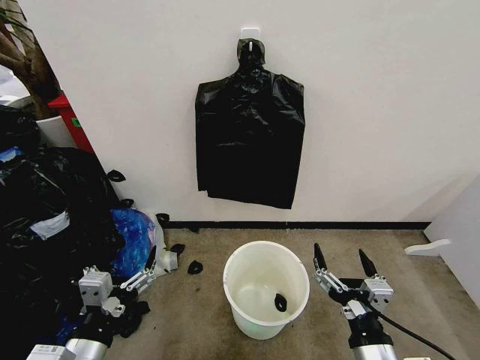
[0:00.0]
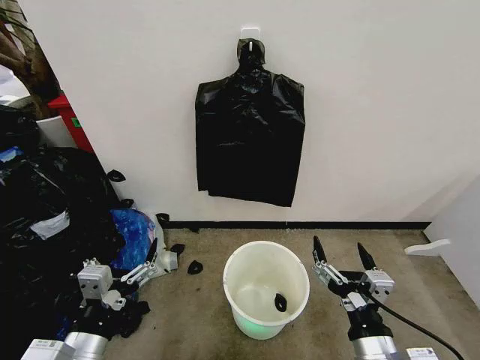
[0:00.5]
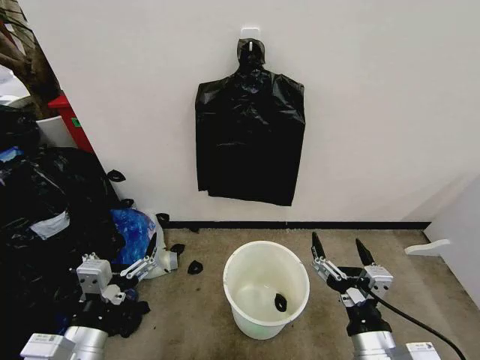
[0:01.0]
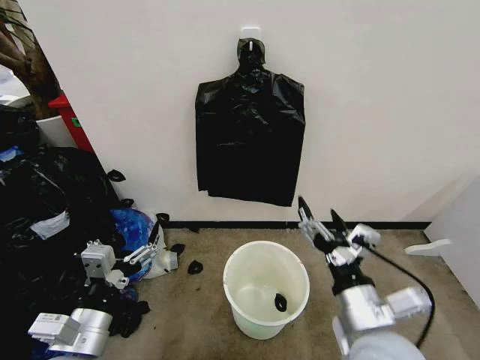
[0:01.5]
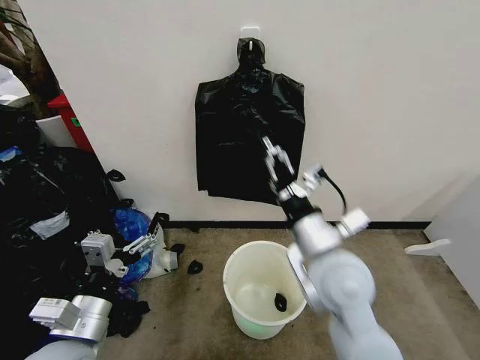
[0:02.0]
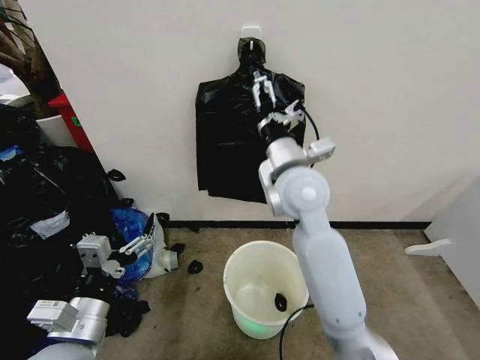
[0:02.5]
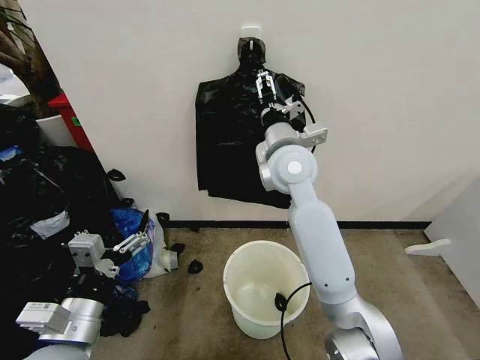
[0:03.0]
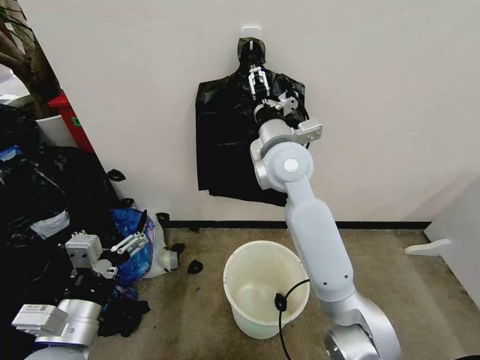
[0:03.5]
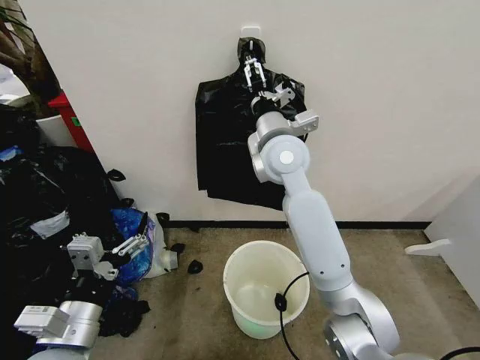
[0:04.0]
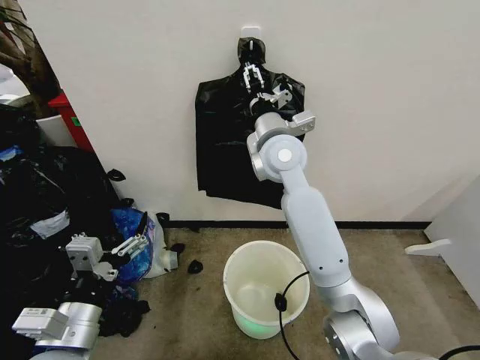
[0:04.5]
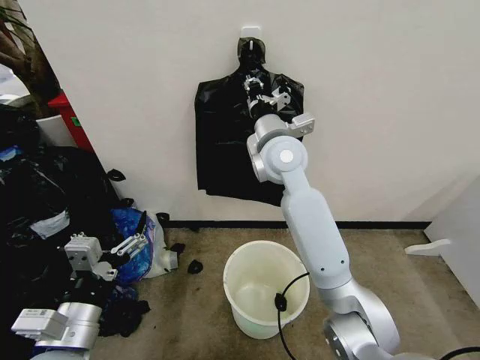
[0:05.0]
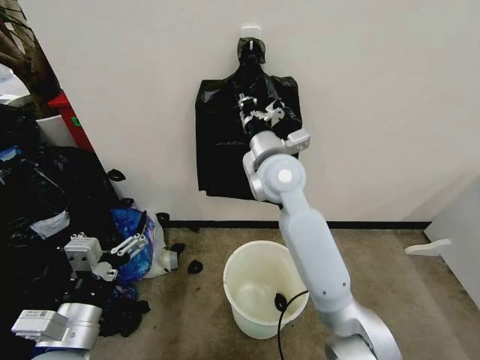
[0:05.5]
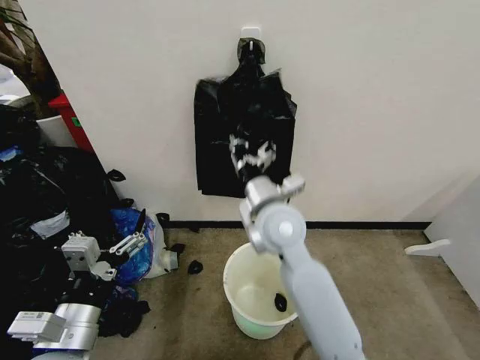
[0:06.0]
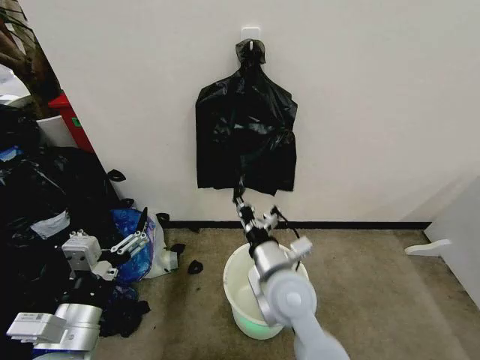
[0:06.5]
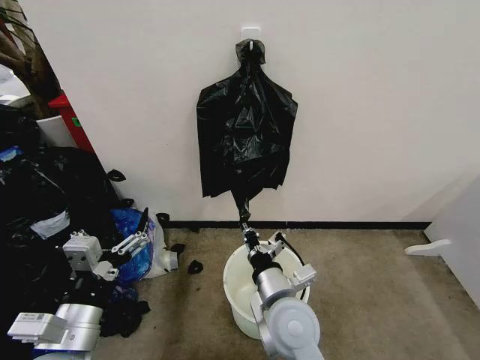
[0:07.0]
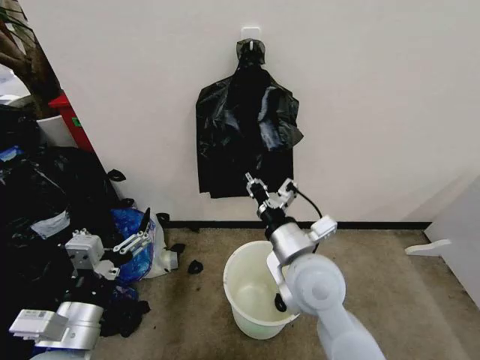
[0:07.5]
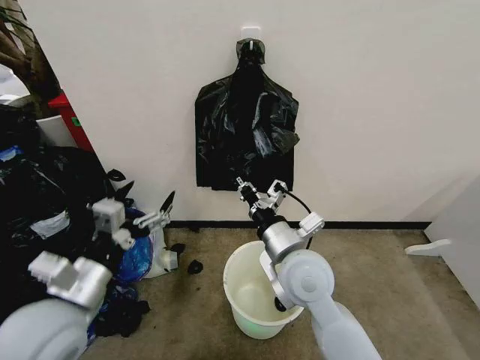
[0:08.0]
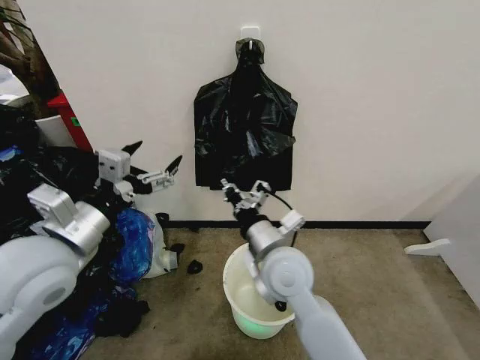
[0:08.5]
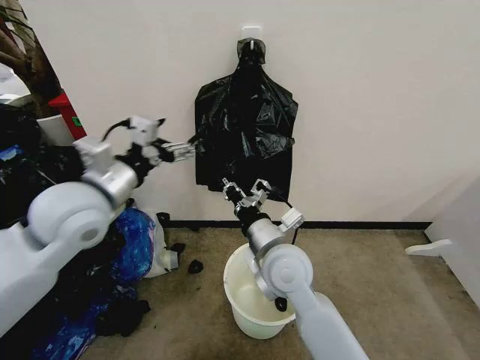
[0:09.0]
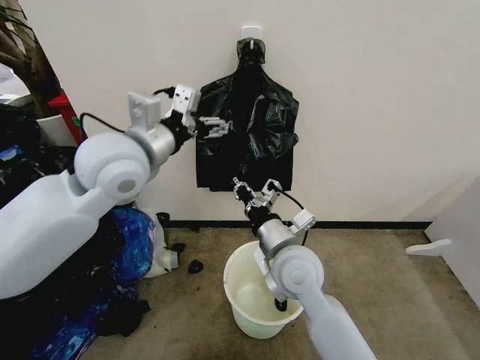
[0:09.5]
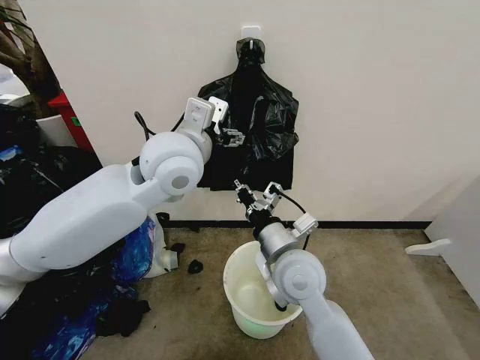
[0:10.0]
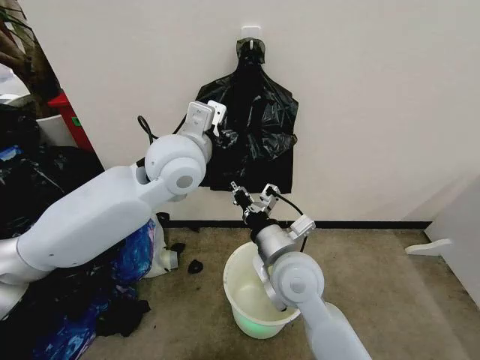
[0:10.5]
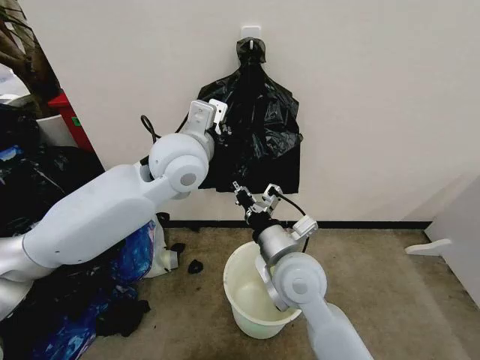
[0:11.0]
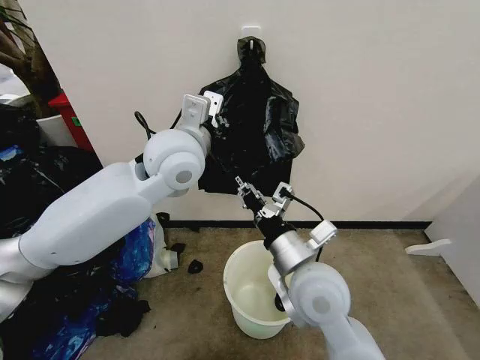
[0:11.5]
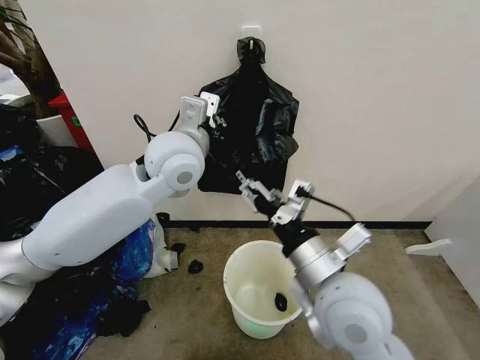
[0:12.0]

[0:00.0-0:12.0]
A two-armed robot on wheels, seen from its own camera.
Task of the whole recording: Place the garbage bag over the trash bin.
0:02.0 to 0:04.0: The right gripper moves forward and upward, approximately 20 cm.
0:04.0 to 0:06.0: The right gripper travels backward and downward by roughly 15 cm, and closes up.
0:06.0 to 0:08.0: The right gripper goes approximately 5 cm backward; the left gripper travels forward by roughly 5 cm.
0:08.0 to 0:10.0: The left gripper moves forward, to the right and upward, about 30 cm.
0:10.0 to 0:12.0: The left gripper closes, while the right gripper goes approximately 10 cm backward and upward, and opens up.

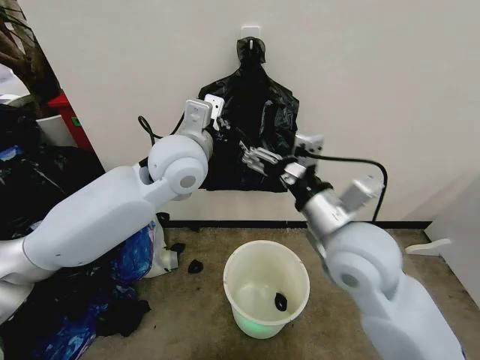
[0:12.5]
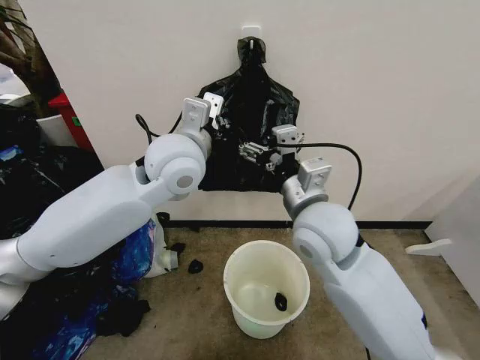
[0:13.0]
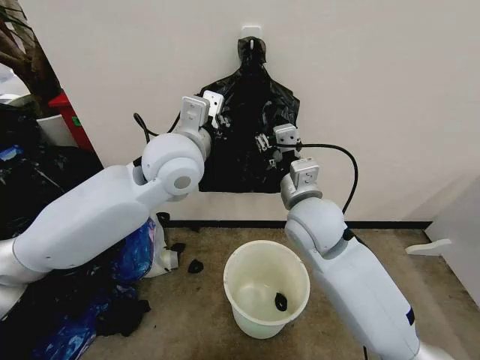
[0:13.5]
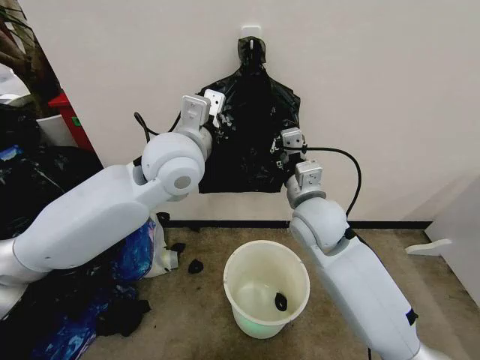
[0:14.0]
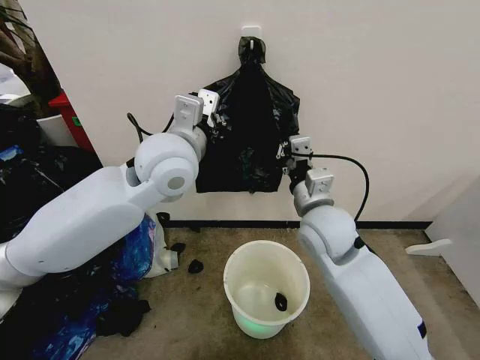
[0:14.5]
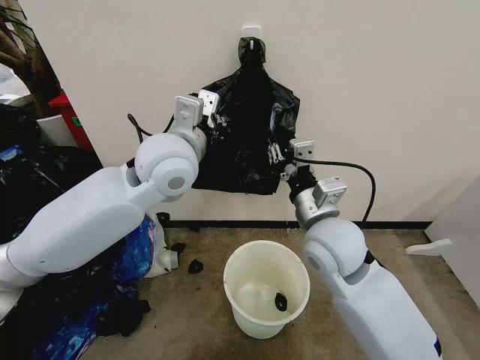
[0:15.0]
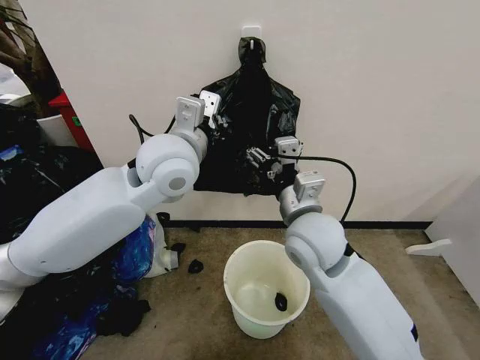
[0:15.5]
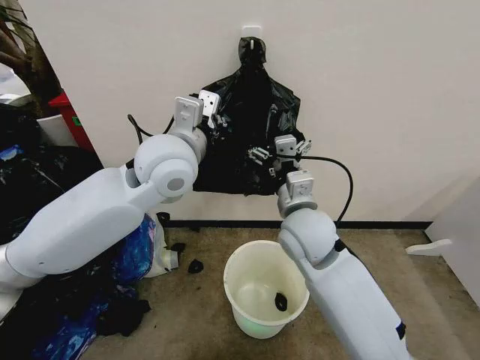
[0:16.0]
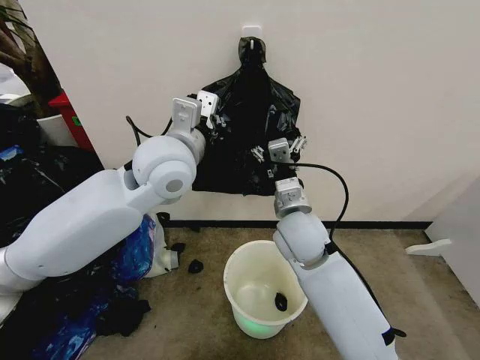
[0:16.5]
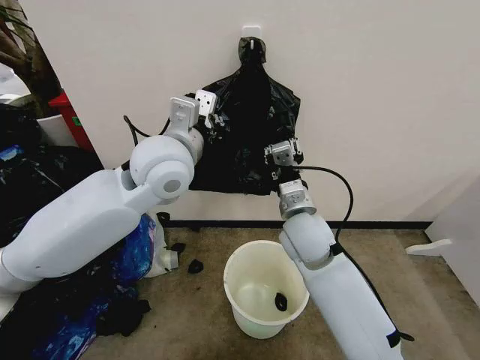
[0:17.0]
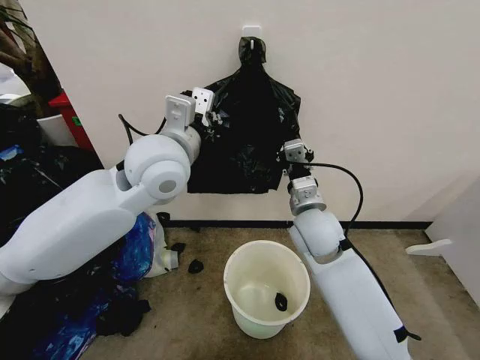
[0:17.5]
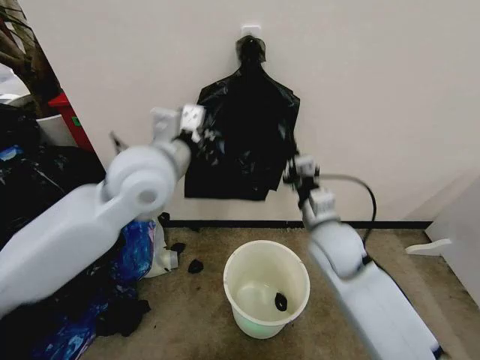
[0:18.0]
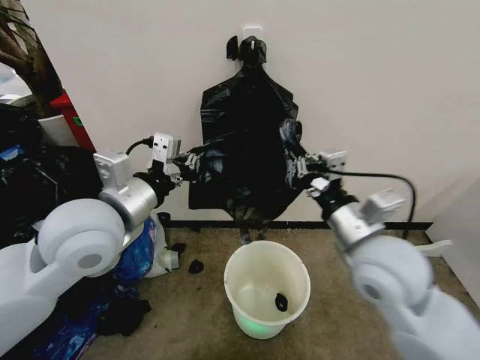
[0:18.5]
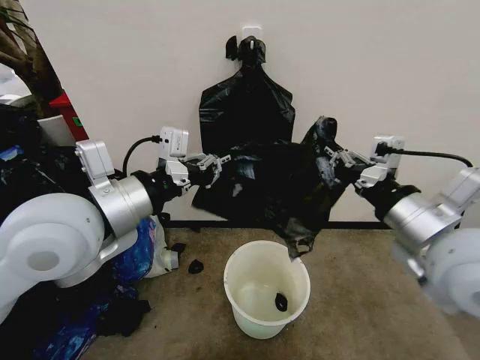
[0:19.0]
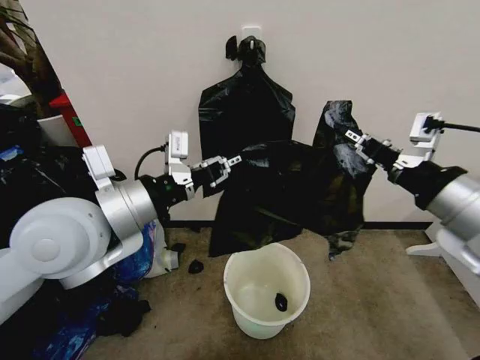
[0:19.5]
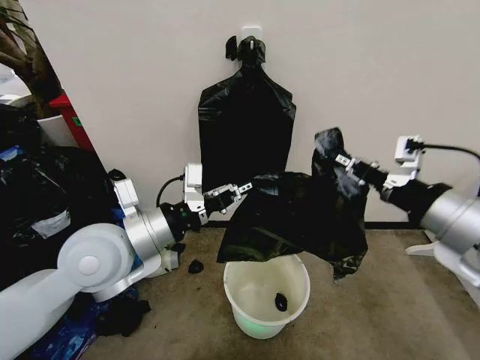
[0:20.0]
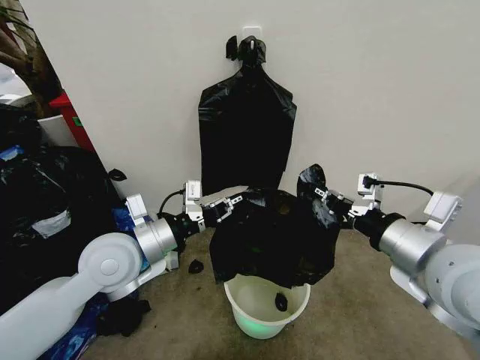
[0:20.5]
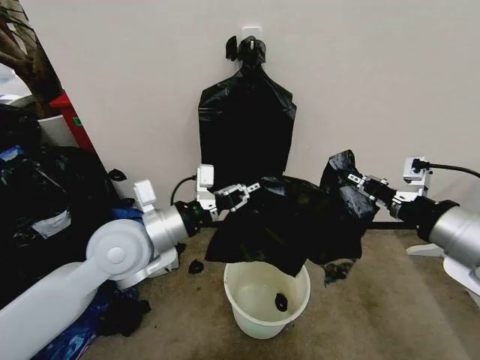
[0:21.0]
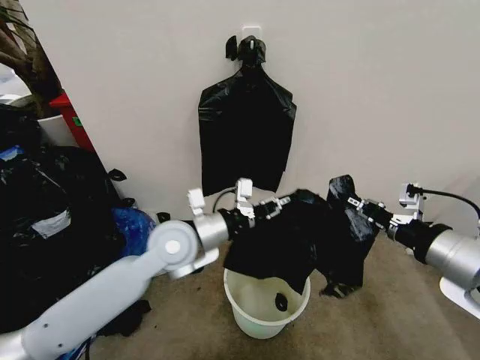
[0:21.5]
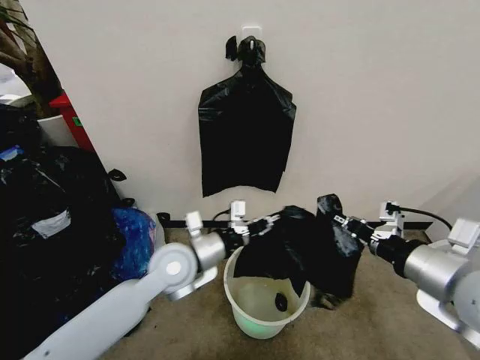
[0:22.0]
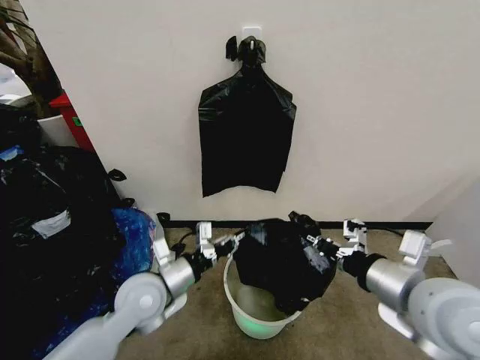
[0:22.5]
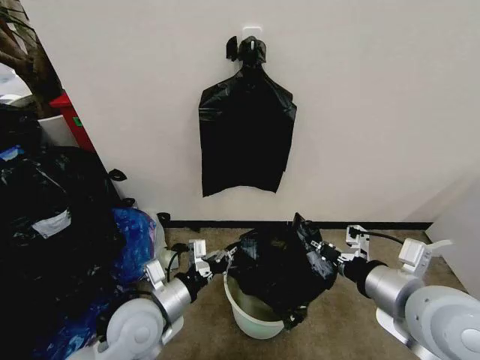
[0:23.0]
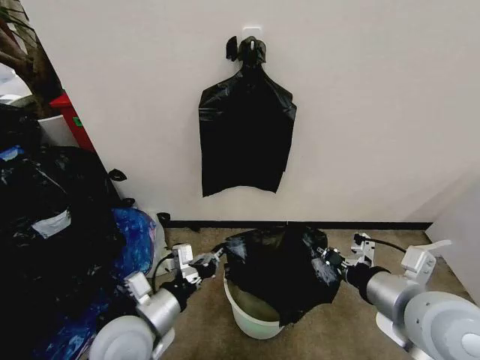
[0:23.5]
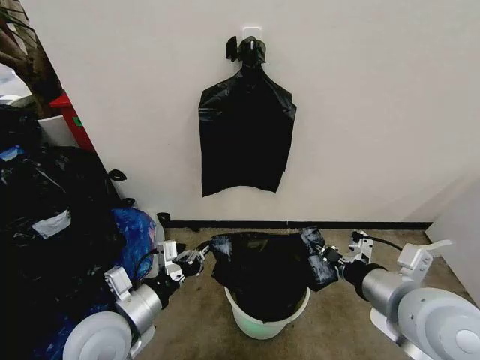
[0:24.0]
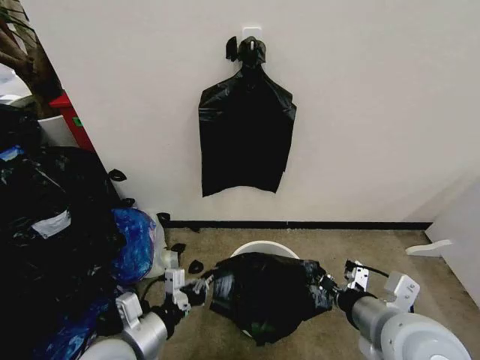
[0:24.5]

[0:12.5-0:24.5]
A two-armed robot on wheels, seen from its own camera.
Task of the whole recording: Place the garbage bag over the trash bin.
0:12.5 to 0:14.5: The right gripper shifts some 10 cm forward and downward, and closes up.
0:14.5 to 0:16.5: The right gripper ends up some 5 cm from where it was, and opens up.
0:16.5 to 0:18.5: The left gripper shifts some 15 cm backward and to the left, while the right gripper shifts approximately 15 cm to the right, backward and upward, and closes.
0:18.5 to 0:20.5: The left gripper is displaced downward by roughly 10 cm. Meanwhile the right gripper heads to the right, covering some 5 cm.
0:20.5 to 0:22.5: The right gripper heads downward, covering about 5 cm. Meanwhile the left gripper heads downward, covering about 10 cm.
0:22.5 to 0:24.5: The left gripper moves backward, some 10 cm; the right gripper moves some 5 cm.

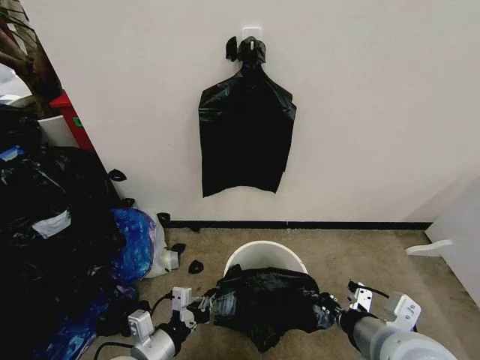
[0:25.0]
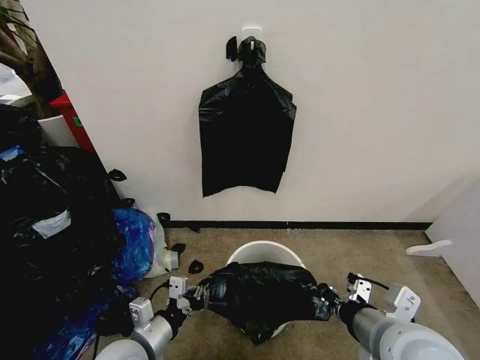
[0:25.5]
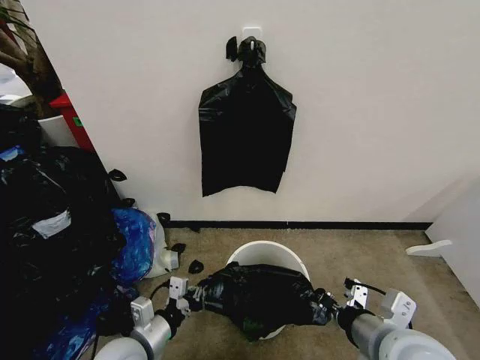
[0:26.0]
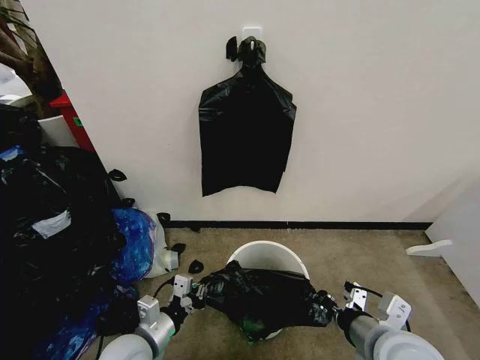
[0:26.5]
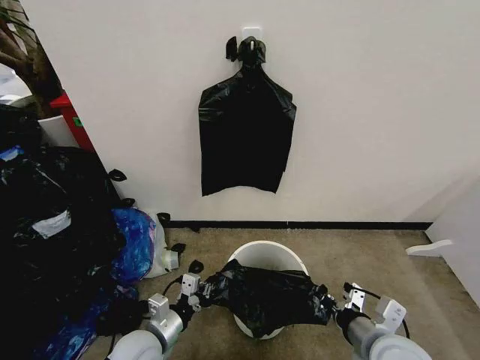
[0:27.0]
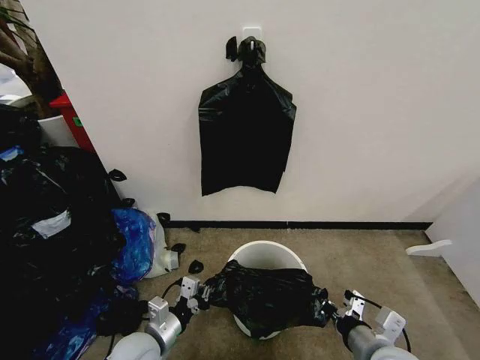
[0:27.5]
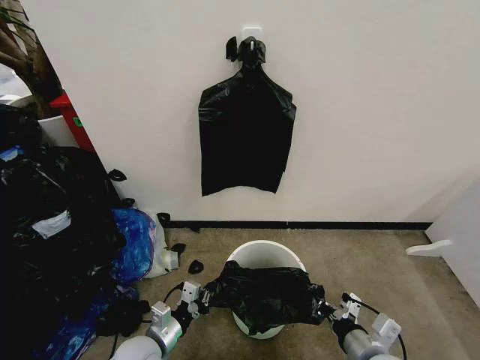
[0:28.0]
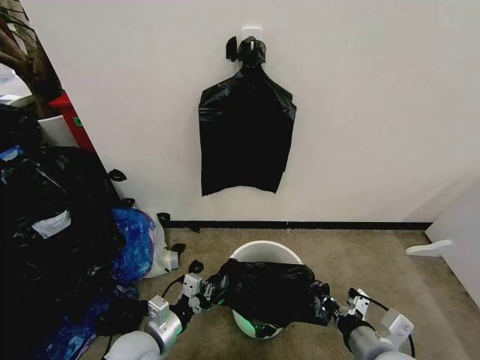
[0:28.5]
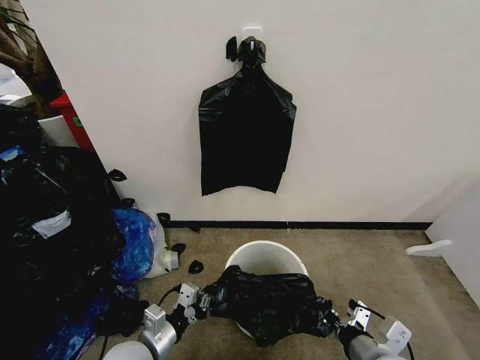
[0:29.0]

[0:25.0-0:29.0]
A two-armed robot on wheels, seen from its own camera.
Task of the whole recording: Place the garbage bag over the trash bin.
0:25.0 to 0:27.0: The left gripper moves downward and forward, roughly 10 cm, while the right gripper moves downward, about 10 cm.
